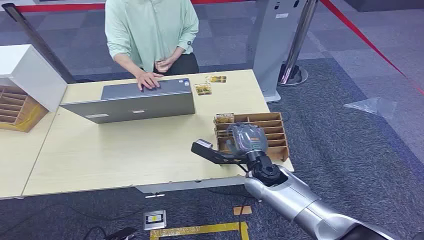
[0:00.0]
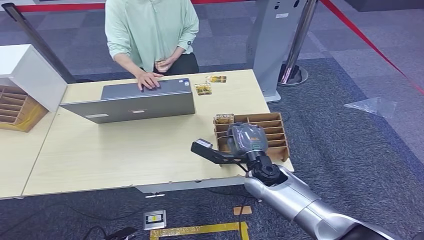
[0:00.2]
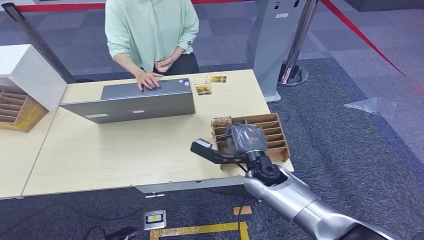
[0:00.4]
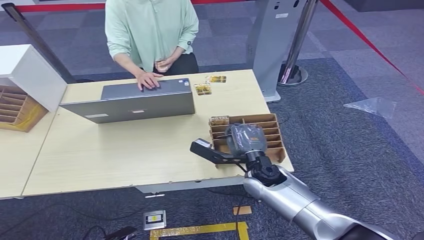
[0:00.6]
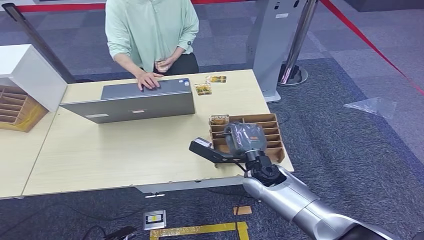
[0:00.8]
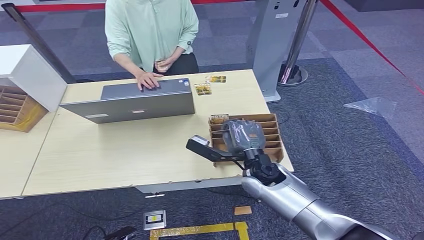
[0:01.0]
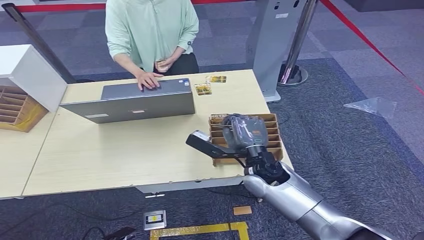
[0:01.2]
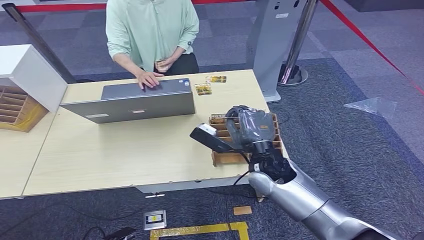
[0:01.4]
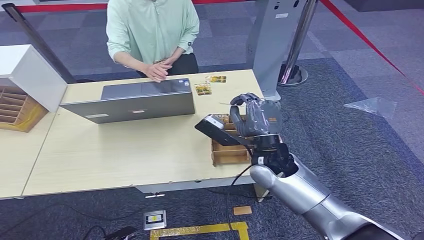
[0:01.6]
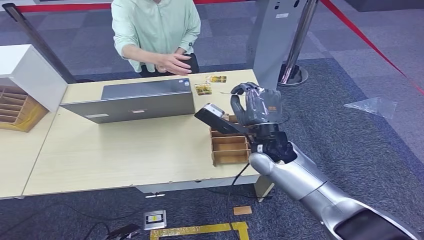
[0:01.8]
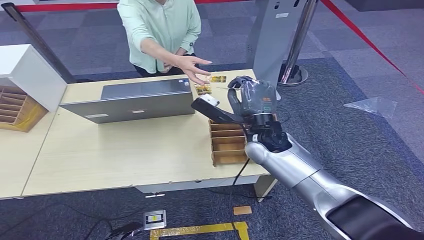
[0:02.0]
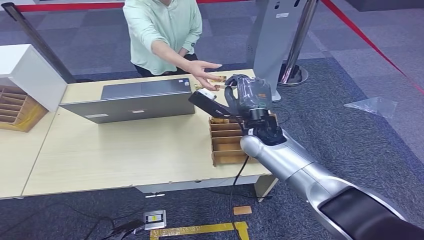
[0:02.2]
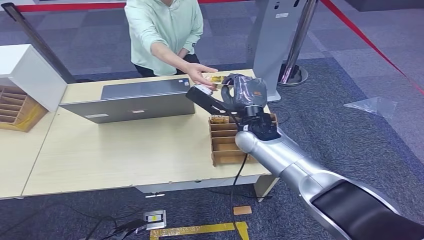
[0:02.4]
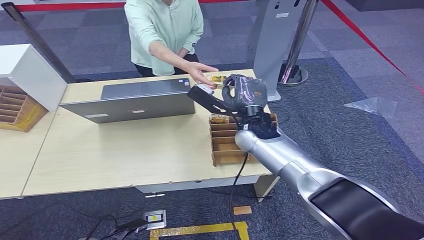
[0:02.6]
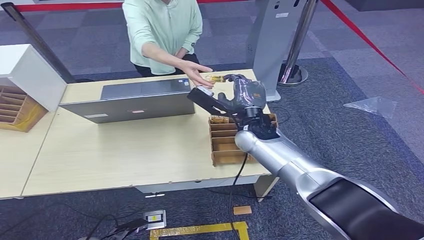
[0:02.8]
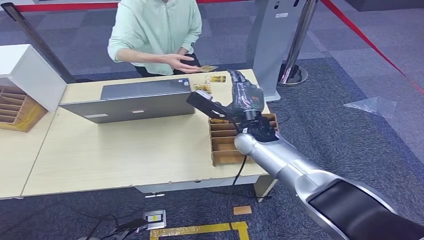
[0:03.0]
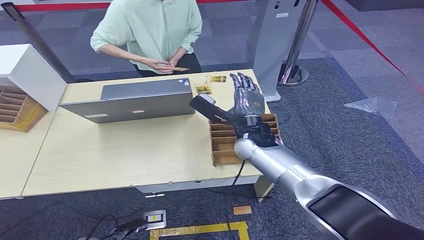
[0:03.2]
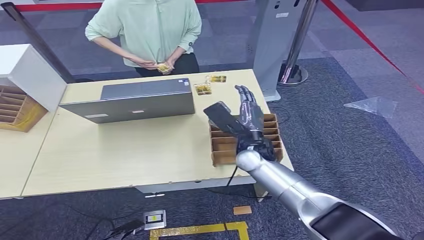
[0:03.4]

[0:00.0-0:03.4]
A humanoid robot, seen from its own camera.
Step, 0:00.0 to 0:01.6: Pick up the key card from the card box.
Step, 0:02.0 to 0:03.2: Hand the key card to the target.
